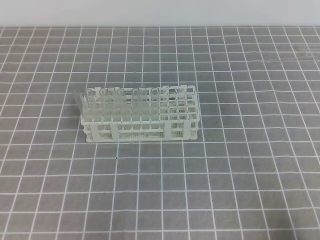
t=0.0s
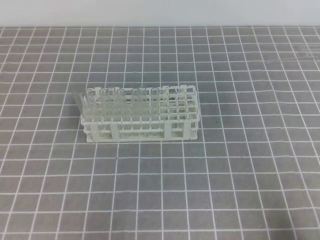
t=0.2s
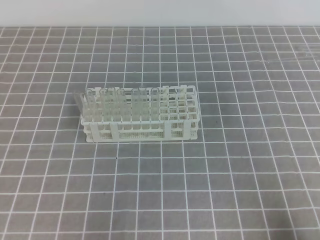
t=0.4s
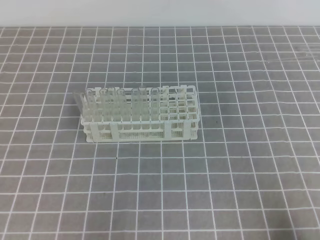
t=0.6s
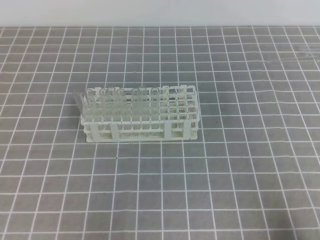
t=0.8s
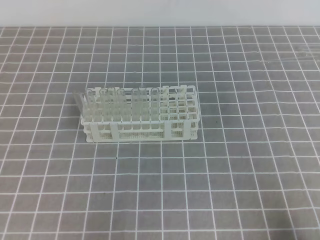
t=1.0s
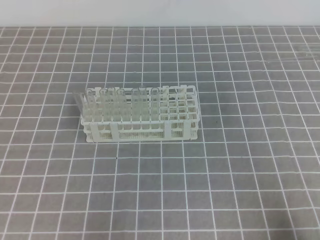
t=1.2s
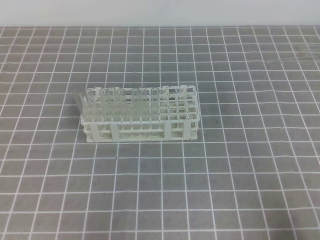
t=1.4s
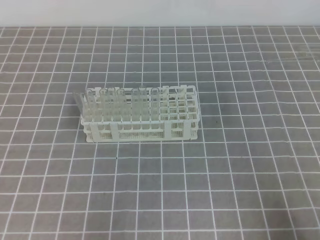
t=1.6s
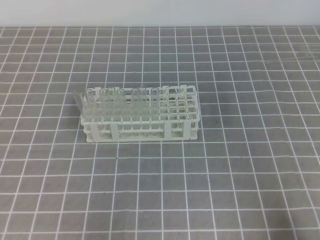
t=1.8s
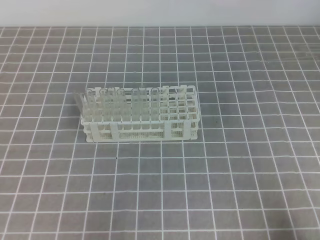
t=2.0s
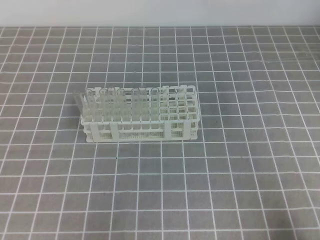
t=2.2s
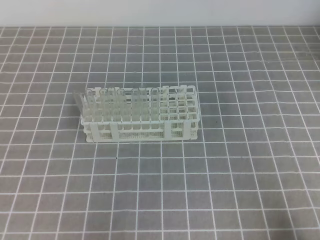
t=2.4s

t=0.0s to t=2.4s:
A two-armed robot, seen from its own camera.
t=0.0s to t=2.4s: Neither gripper changes place.

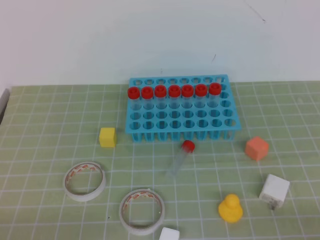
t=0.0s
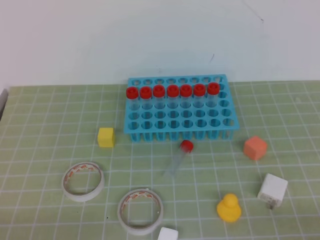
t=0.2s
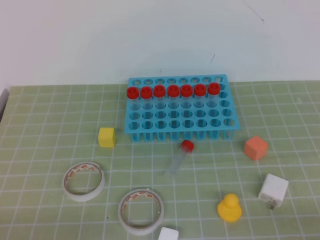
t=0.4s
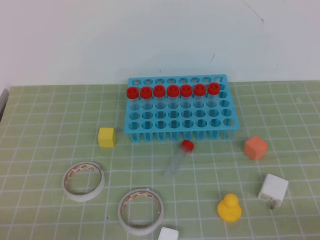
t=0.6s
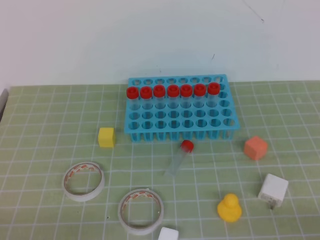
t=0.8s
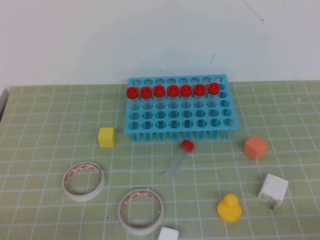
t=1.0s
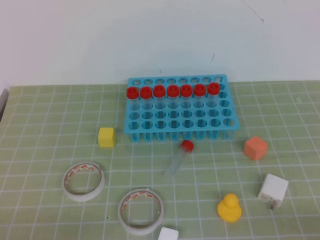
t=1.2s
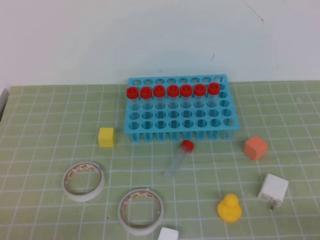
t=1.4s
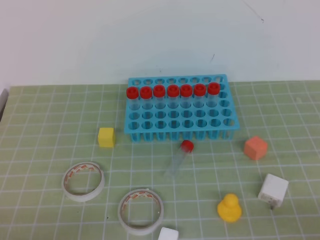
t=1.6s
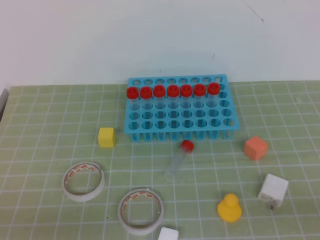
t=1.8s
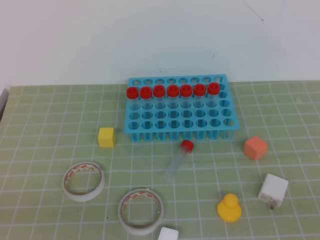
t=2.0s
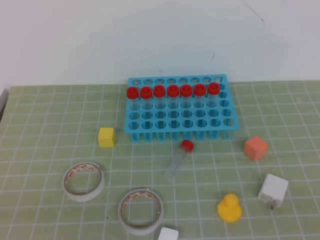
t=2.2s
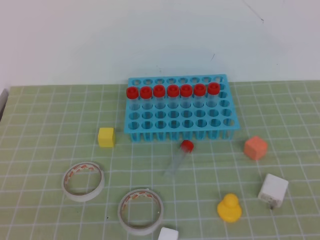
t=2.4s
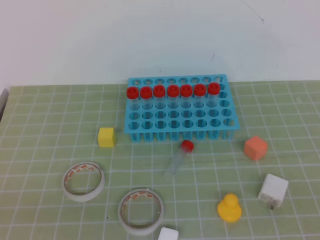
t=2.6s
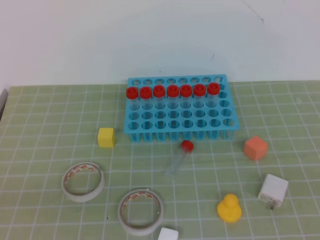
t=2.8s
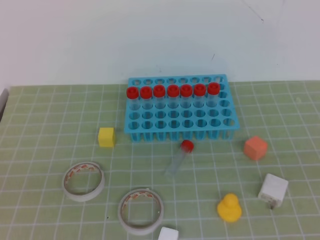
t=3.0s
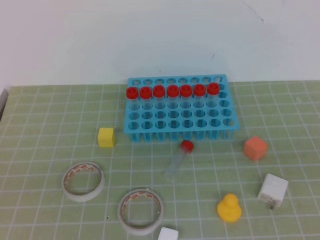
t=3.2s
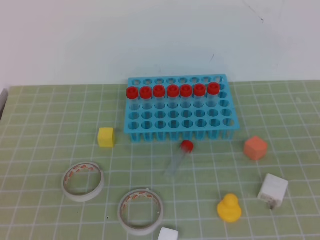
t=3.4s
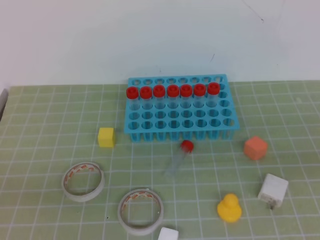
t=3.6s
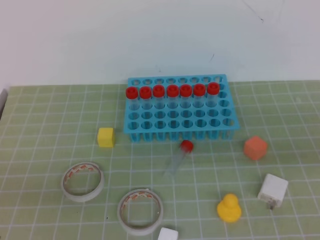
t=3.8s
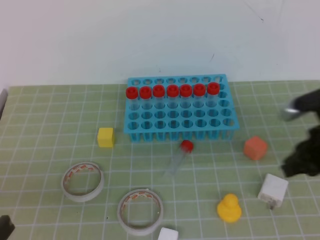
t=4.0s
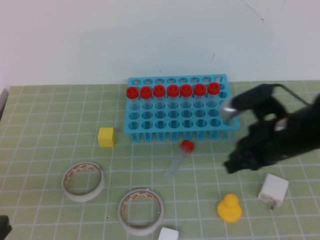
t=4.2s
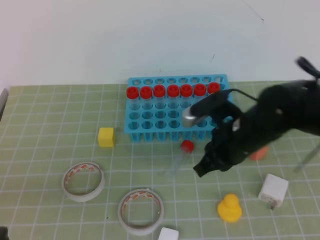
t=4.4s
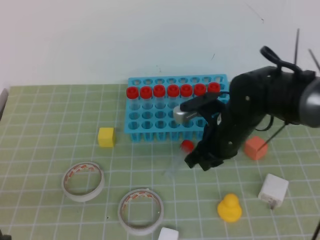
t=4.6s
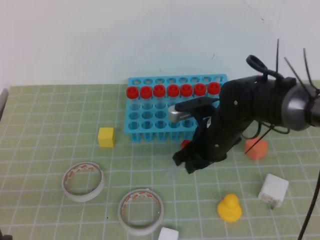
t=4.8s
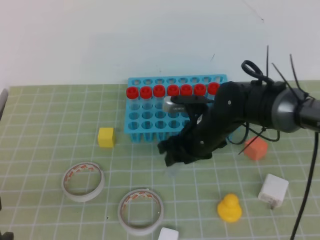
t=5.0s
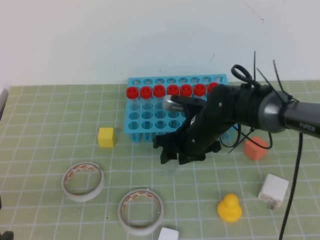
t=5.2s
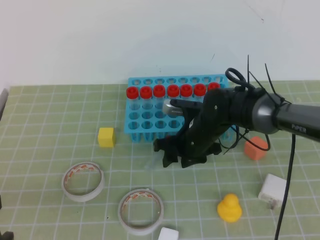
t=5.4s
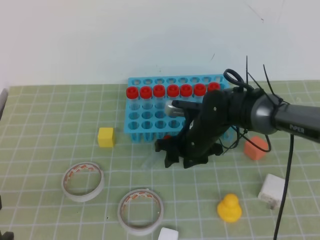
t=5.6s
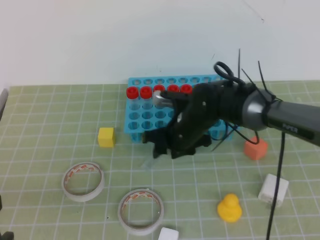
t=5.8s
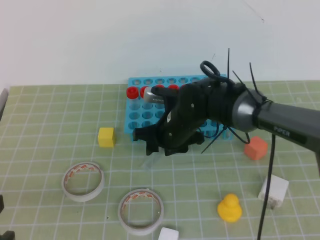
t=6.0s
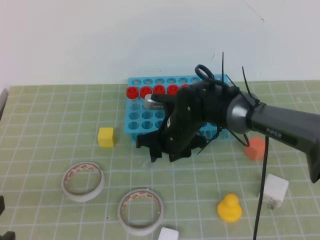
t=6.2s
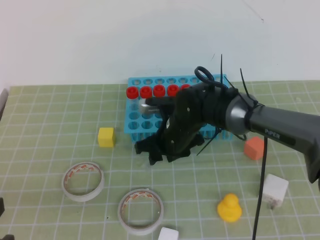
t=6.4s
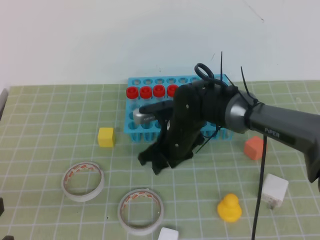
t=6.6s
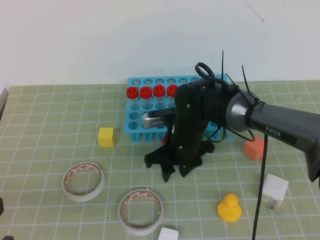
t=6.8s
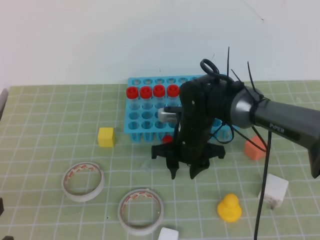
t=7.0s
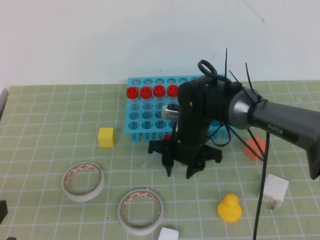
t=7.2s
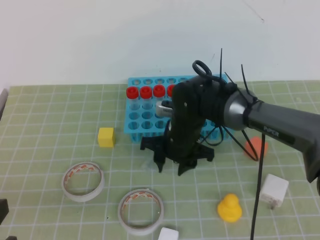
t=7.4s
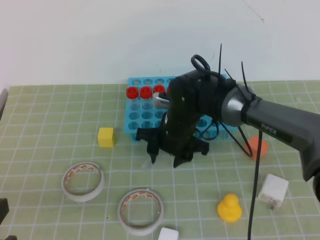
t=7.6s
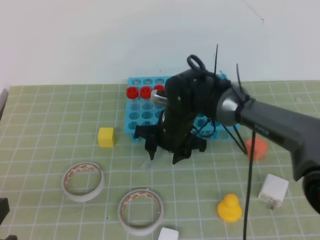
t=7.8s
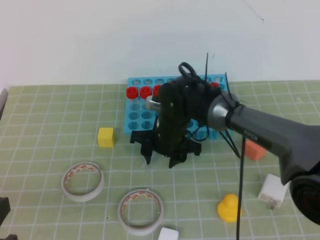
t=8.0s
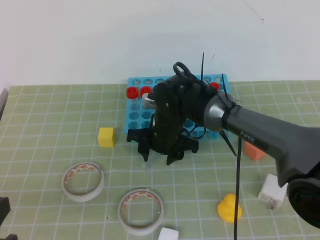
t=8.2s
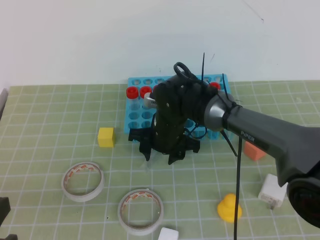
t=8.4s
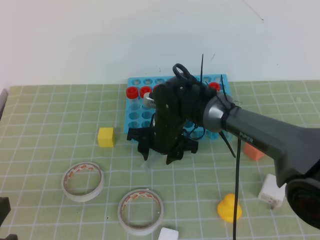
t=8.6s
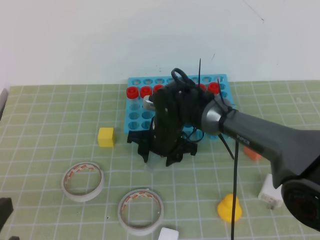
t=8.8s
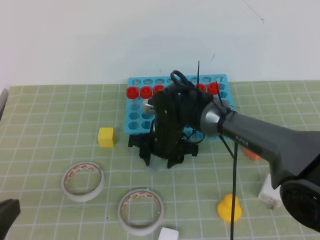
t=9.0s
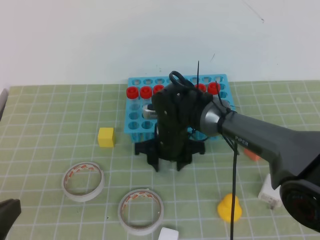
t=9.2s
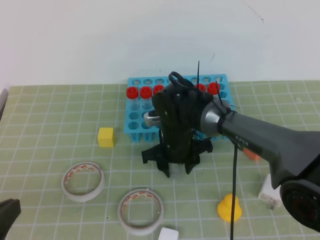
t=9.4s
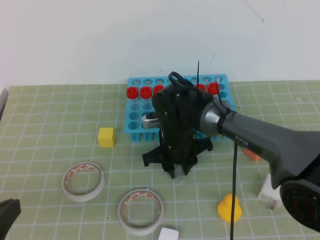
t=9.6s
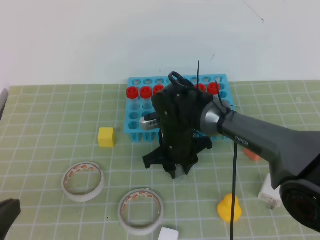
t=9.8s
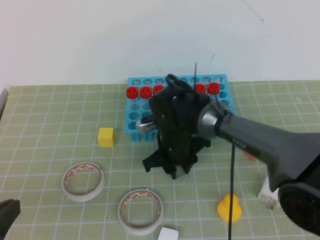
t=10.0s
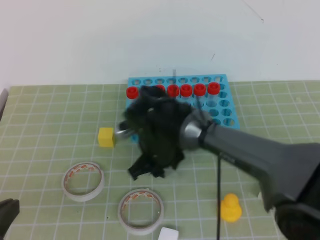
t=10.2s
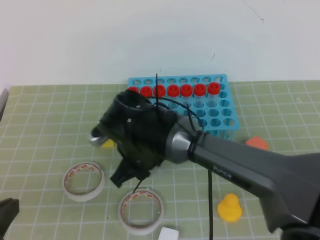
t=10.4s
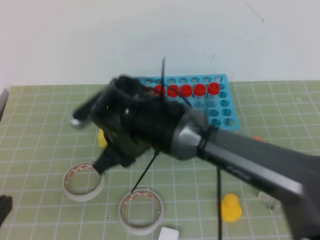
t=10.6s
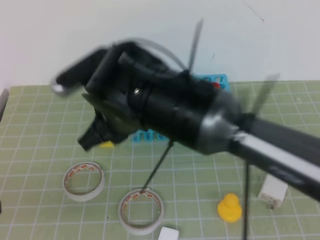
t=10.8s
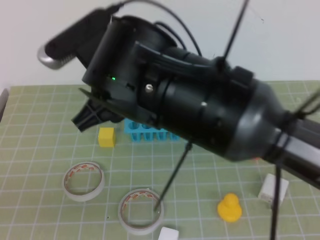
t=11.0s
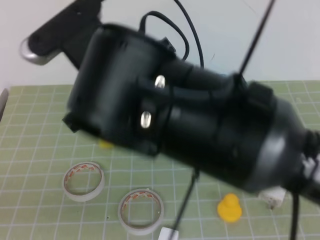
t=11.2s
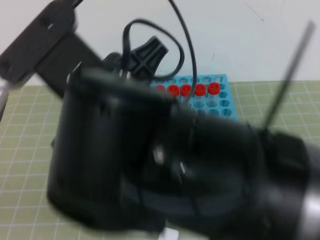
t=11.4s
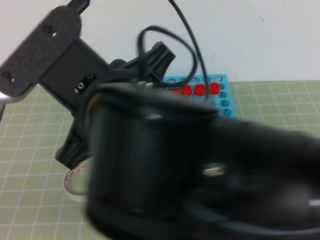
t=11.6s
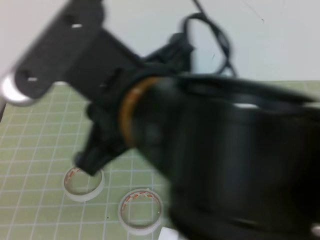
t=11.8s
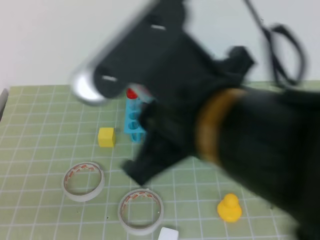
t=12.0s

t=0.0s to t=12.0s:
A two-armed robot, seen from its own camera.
t=3.0s to t=4.4s: The left gripper goes roughly 5 cm forward. Meanwhile the right gripper is displaced forward and to the left by about 35 cm.
t=4.4s to t=6.0s: The right gripper is displaced to the left, forward and downward by approximately 15 cm, and opens its fingers.
t=6.0s to t=9.0s: The grippers move only a little.
t=9.0s to t=10.4s: The right gripper heads backward and upward, covering about 10 cm, and closes its fingers.
t=10.4s to t=12.0s: The right gripper heads upward and backward, covering some 30 cm.

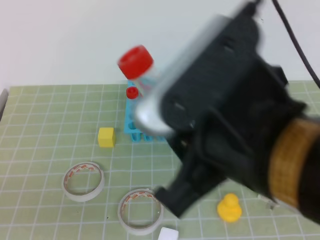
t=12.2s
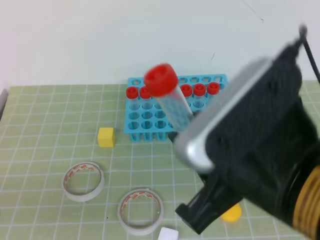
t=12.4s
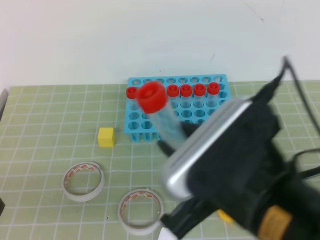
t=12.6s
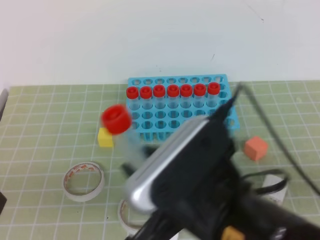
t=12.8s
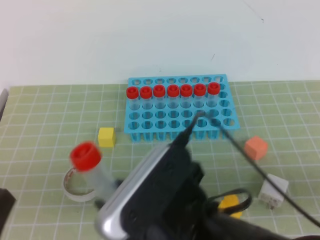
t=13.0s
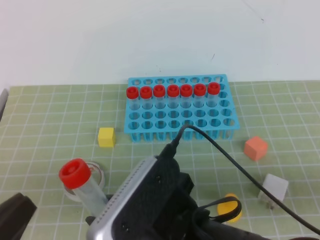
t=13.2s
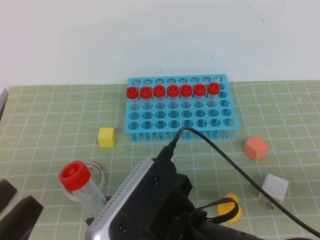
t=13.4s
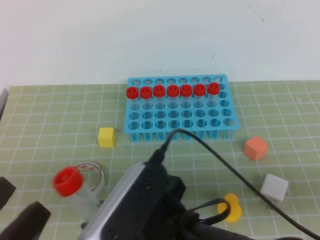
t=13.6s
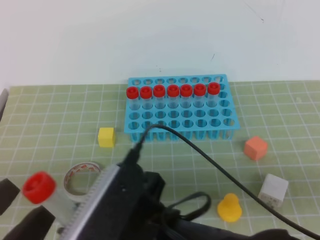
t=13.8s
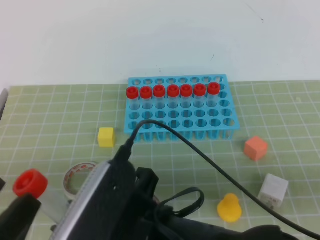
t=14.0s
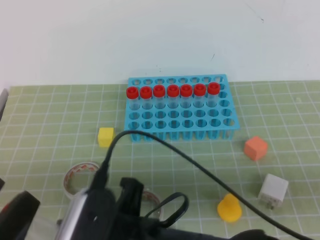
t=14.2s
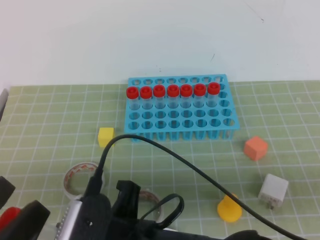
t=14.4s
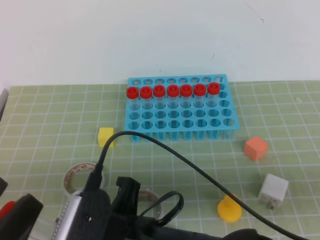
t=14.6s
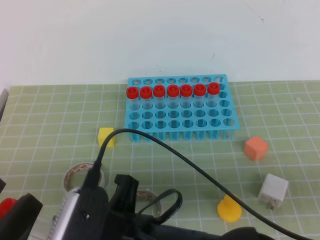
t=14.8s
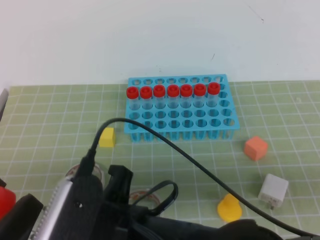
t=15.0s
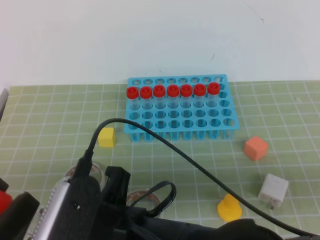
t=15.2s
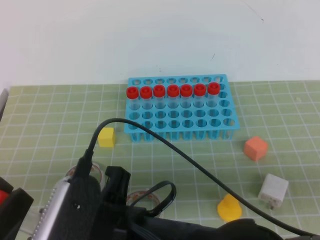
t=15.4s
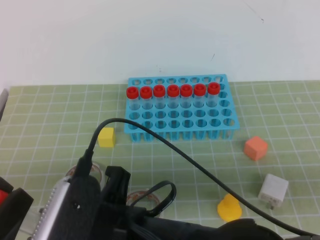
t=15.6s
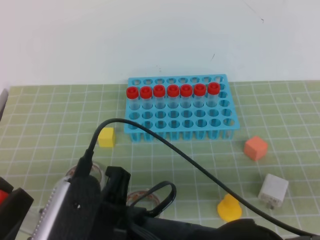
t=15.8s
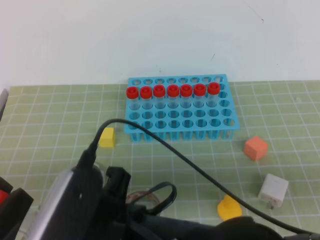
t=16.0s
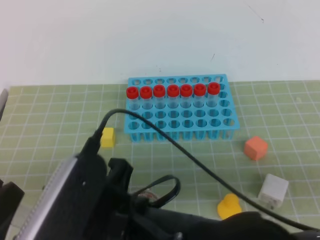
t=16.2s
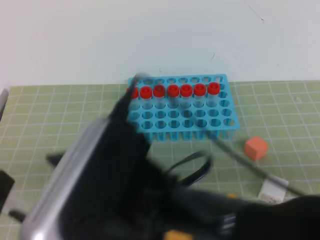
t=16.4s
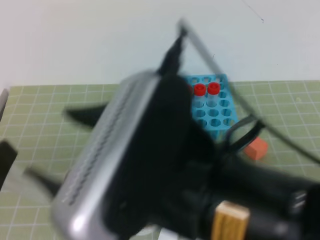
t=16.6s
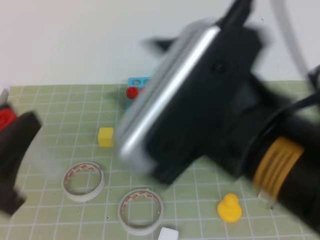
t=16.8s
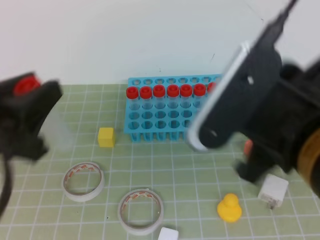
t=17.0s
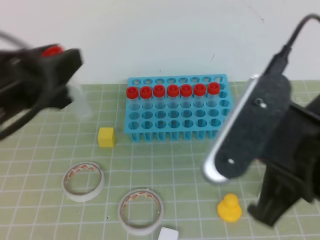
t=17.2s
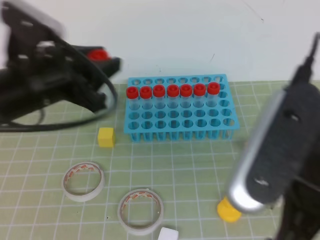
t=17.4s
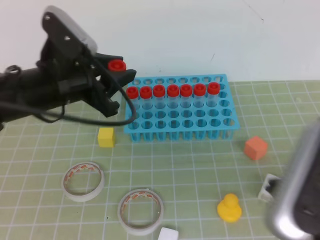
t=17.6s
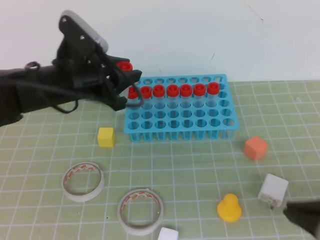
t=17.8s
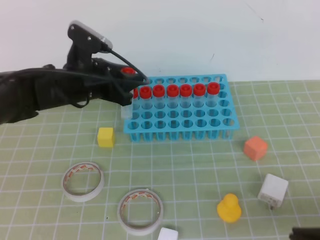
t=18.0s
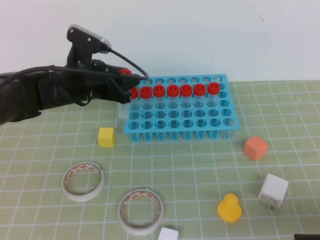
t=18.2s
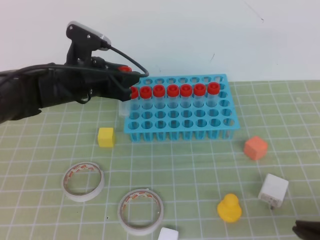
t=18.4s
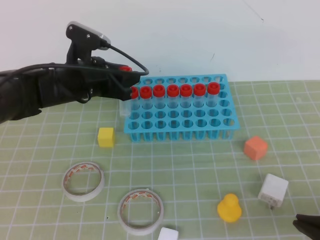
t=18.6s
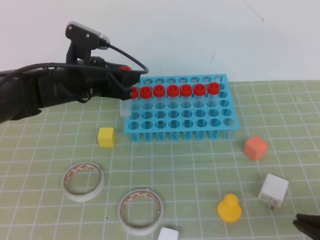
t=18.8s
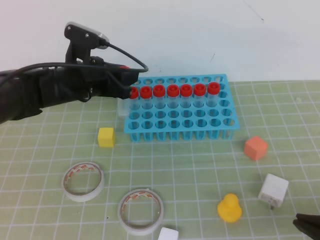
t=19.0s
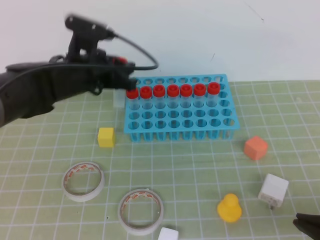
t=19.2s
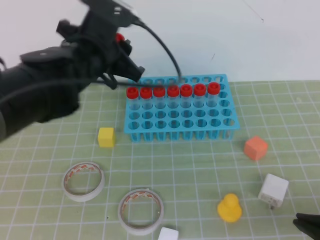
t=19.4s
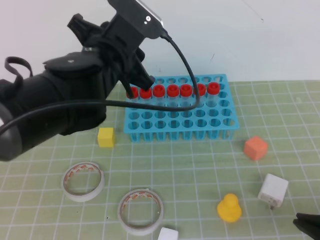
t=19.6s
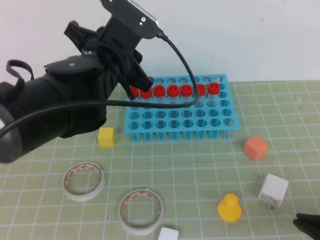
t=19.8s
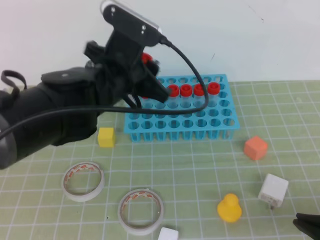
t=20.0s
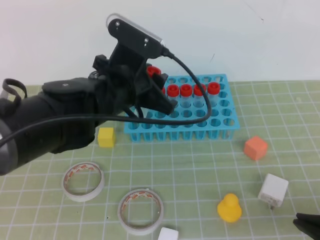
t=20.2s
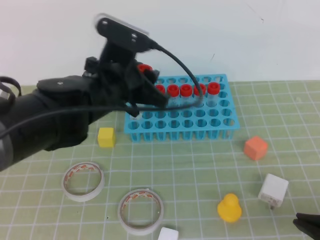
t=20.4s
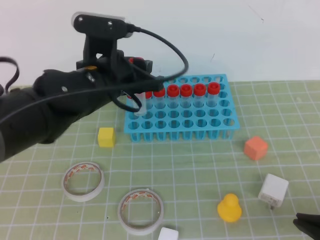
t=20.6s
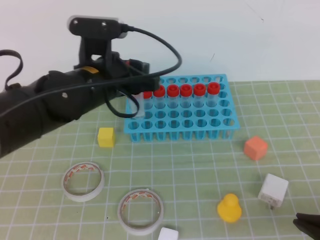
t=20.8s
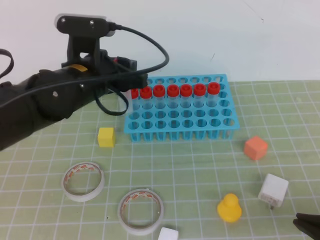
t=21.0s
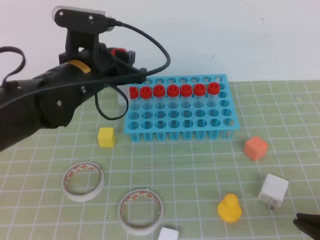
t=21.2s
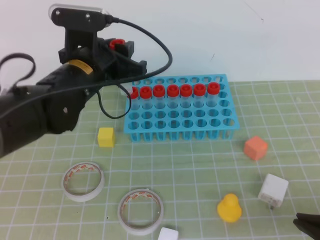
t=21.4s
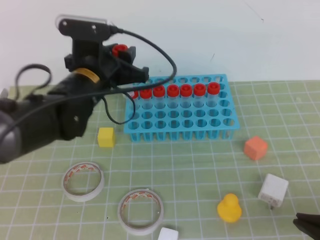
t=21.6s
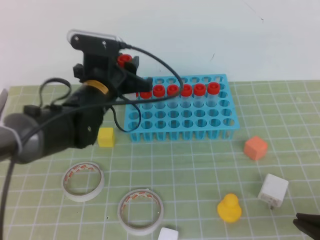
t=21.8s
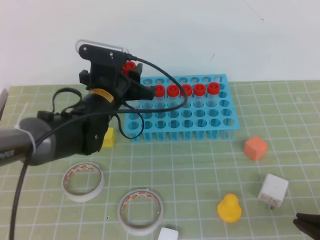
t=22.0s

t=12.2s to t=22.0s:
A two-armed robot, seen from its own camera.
t=12.2s to t=13.6s: The right gripper heads downward and to the left, covering some 15 cm. The left gripper opens up.
t=13.6s to t=15.0s: The grippers make only small movements.
t=15.0s to t=16.4s: The left gripper closes up. Meanwhile the right gripper goes some 5 cm upward, and opens up.
t=16.4s to t=17.8s: The right gripper travels to the right by approximately 20 cm, and closes its fingers. The left gripper moves forward, about 30 cm.
t=17.8s to t=19.2s: The right gripper shifts by approximately 5 cm.
t=19.2s to t=20.6s: The left gripper moves backward, some 5 cm.
t=20.6s to t=22.0s: The left gripper goes approximately 10 cm downward and forward.
